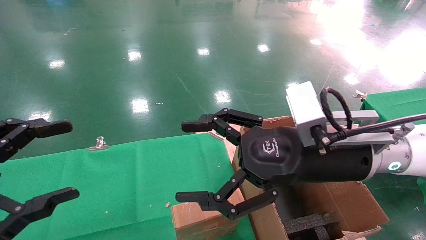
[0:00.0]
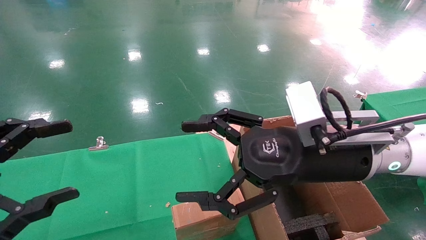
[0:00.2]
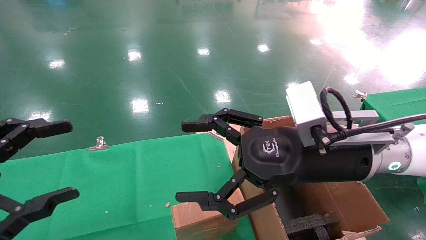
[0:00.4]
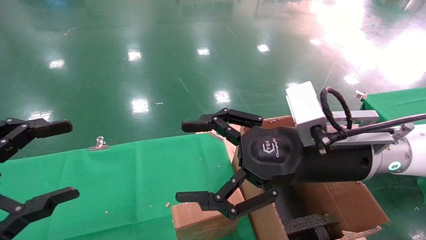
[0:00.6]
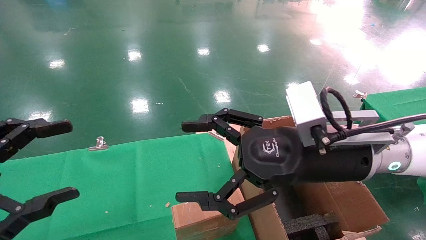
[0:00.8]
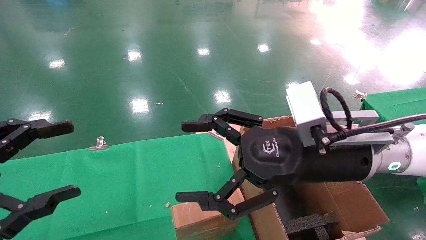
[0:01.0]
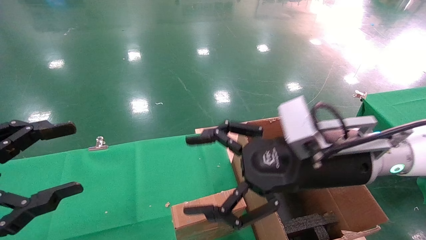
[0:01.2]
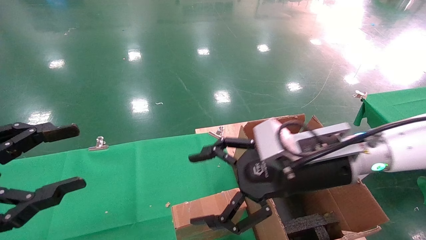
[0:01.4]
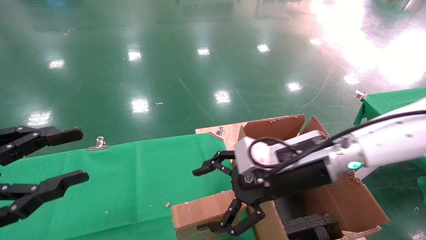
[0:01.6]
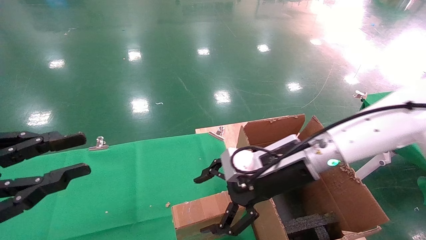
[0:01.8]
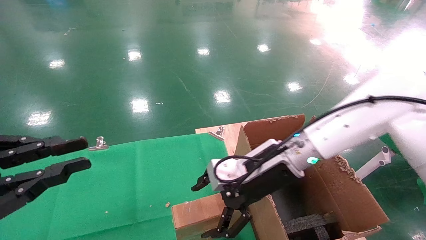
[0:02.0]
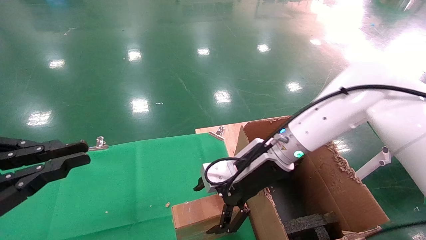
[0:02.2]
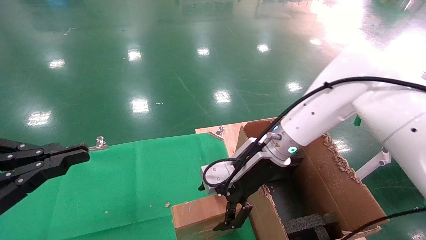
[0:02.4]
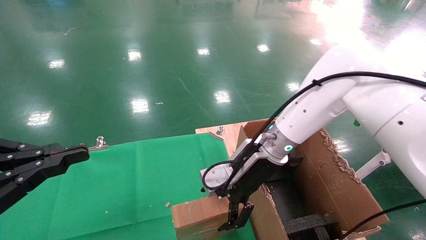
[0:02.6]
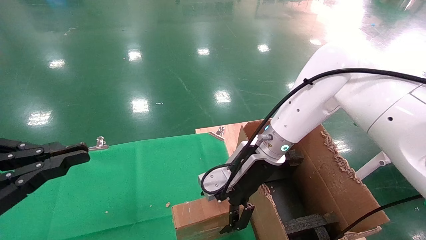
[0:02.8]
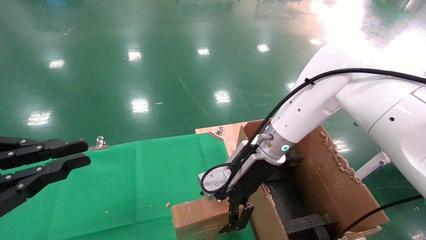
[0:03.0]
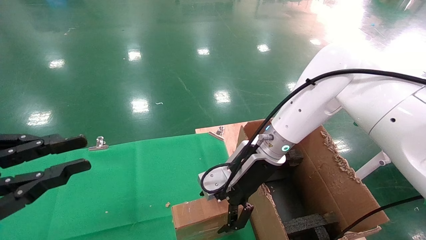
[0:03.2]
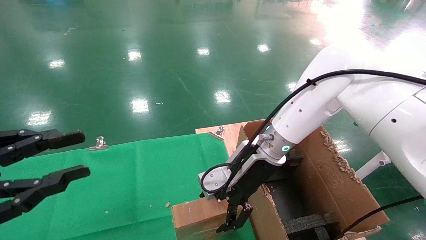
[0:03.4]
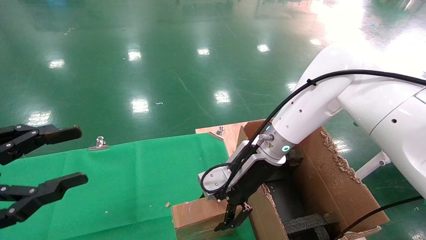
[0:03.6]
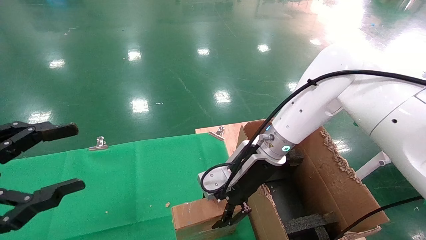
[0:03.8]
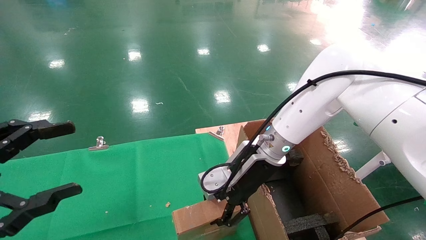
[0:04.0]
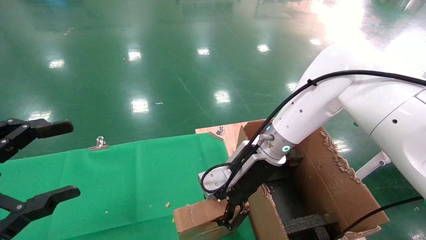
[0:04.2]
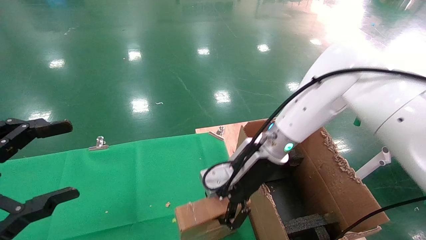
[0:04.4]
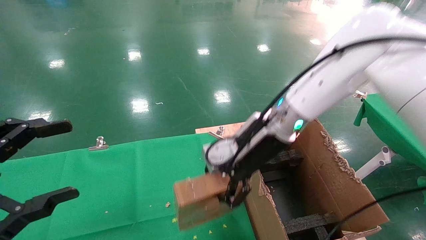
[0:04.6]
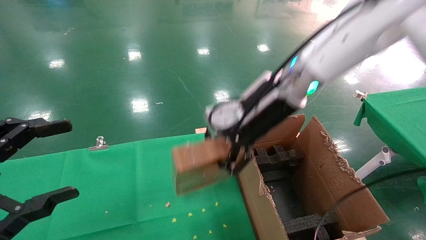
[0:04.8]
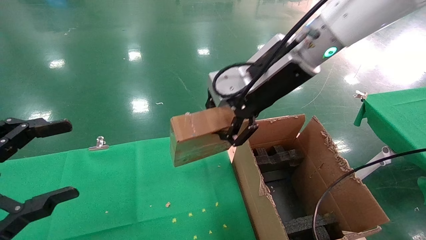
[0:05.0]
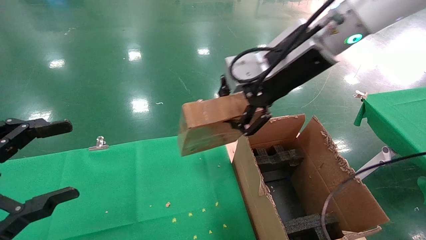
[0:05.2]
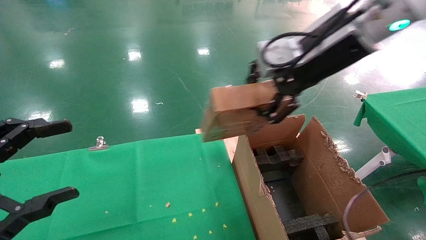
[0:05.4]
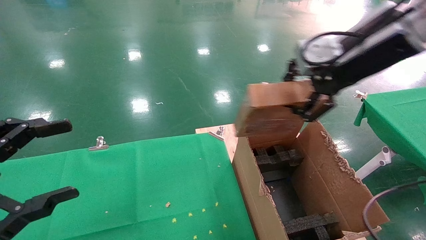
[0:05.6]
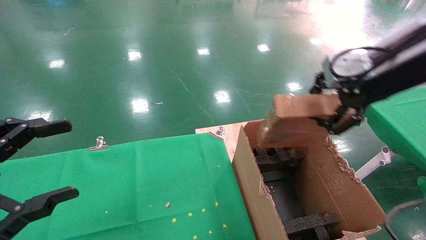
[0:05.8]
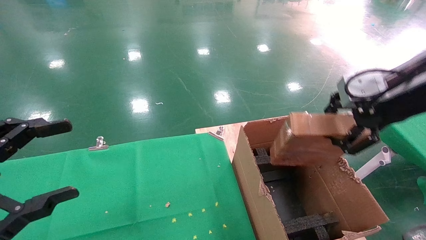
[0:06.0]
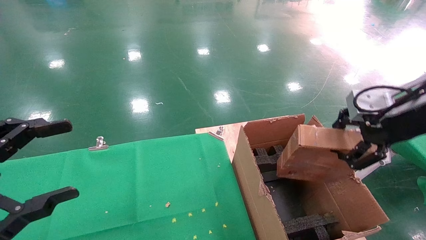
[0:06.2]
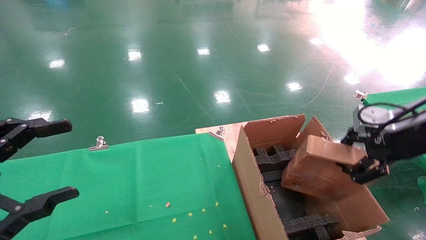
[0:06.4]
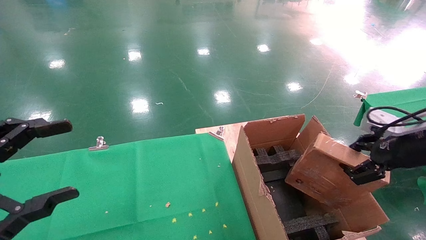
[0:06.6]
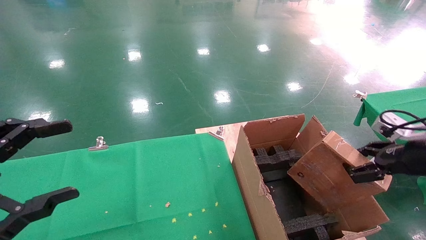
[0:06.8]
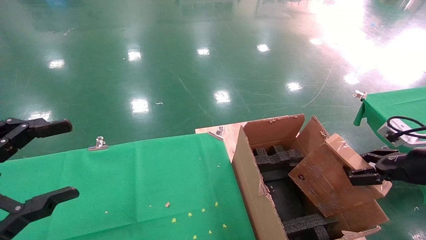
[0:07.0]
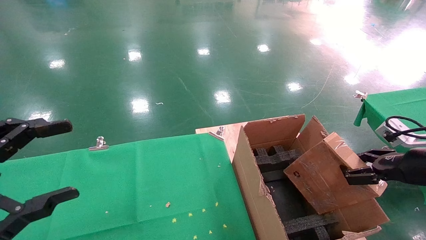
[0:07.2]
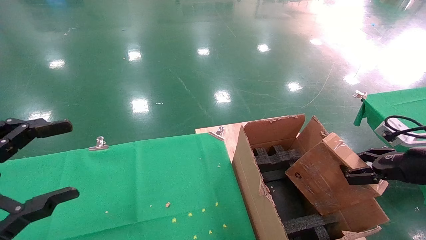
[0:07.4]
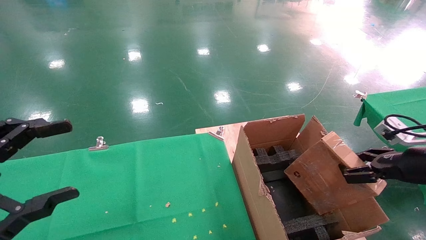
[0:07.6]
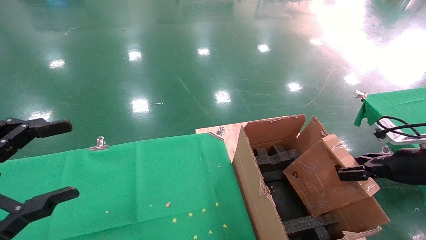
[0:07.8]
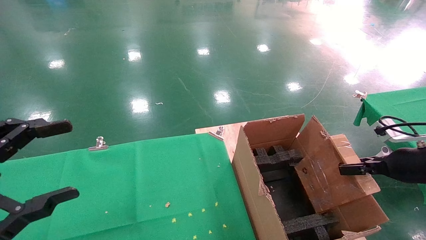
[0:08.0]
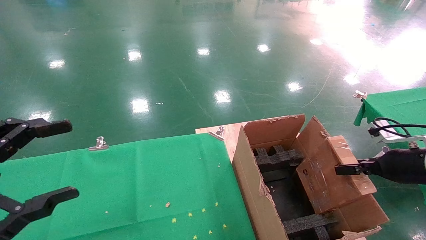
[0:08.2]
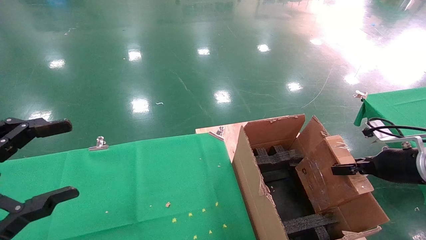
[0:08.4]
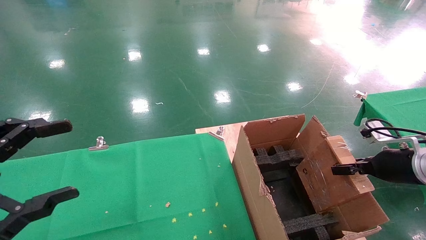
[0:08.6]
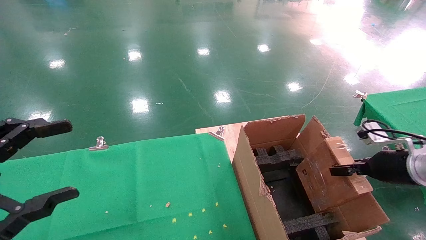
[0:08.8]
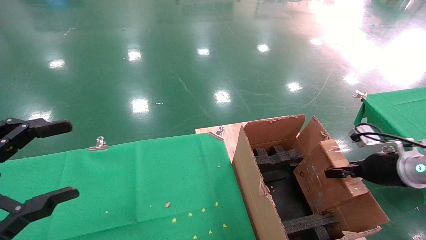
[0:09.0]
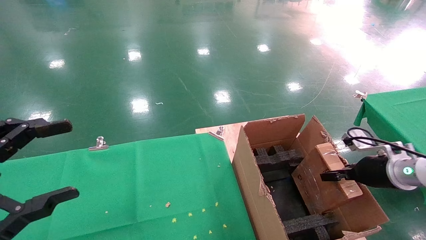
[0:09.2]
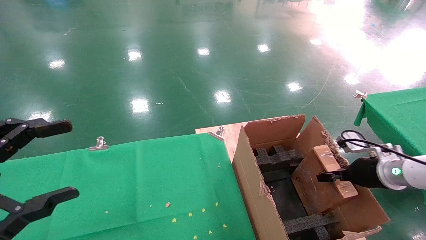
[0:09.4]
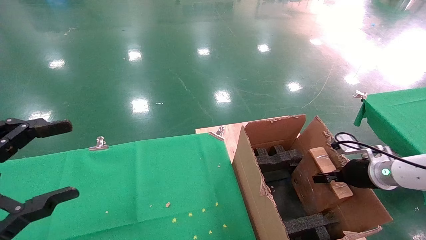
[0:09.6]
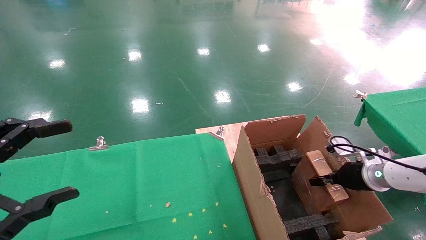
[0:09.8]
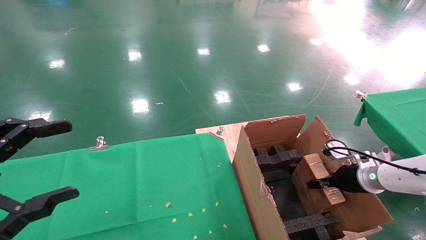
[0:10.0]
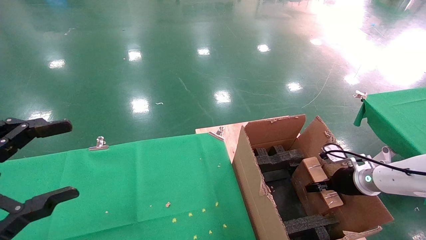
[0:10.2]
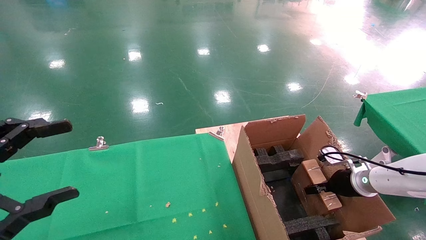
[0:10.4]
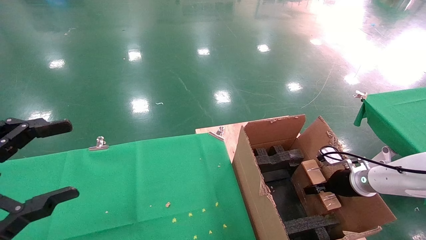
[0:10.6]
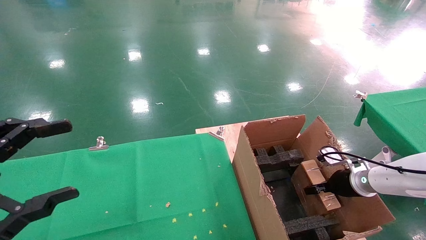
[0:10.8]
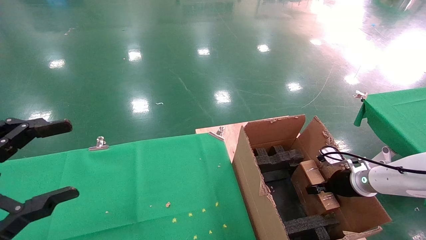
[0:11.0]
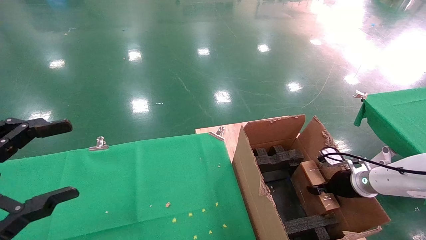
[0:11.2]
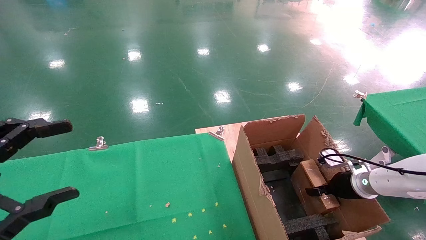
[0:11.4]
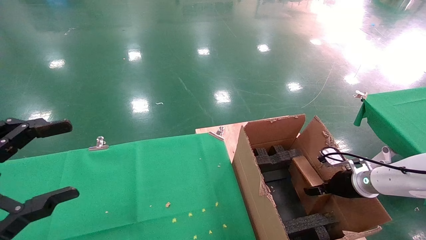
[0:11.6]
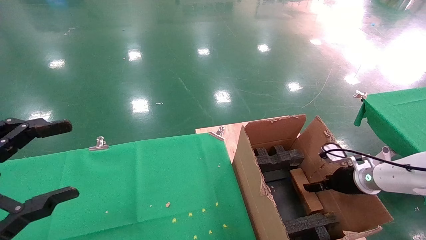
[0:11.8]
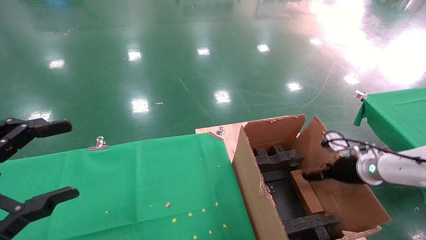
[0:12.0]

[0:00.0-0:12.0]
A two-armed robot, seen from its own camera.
Task of the whole recording: using a robotic arm to pick up a cardboard box and palace it the carton.
Step, 0:01.4 to 0:03.8: Pick up the mouse and the power cord paper box.
0:00.0 to 0:01.6: The right gripper moves forward, about 5 cm.
0:01.6 to 0:03.0: The right gripper is displaced forward by roughly 10 cm, while the left gripper closes its fingers.
0:03.0 to 0:04.4: The right gripper closes its fingers; the left gripper opens its fingers.
0:04.4 to 0:06.0: The right gripper heads to the right, upward and backward, covering approximately 30 cm.
0:06.0 to 0:07.6: The right gripper heads downward and to the right, covering roughly 20 cm.
0:07.6 to 0:09.0: The right gripper goes about 5 cm forward.
0:09.0 to 0:10.4: The right gripper heads downward and forward, covering approximately 10 cm.
0:10.4 to 0:12.0: The right gripper heads upward, covering roughly 5 cm, and opens.

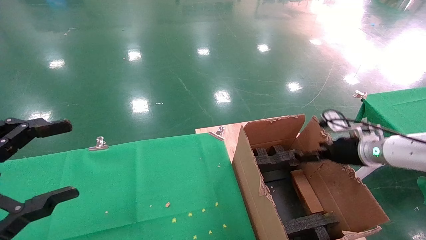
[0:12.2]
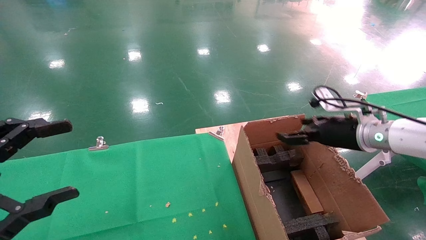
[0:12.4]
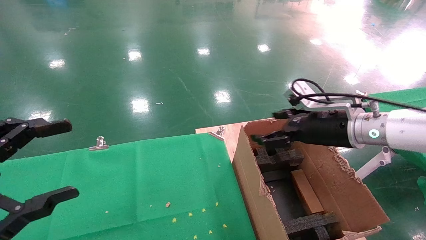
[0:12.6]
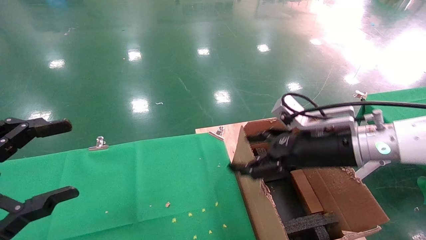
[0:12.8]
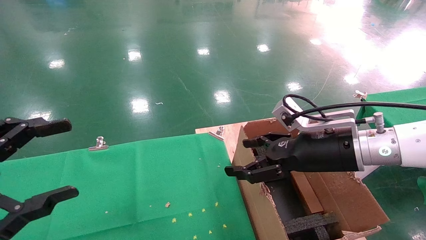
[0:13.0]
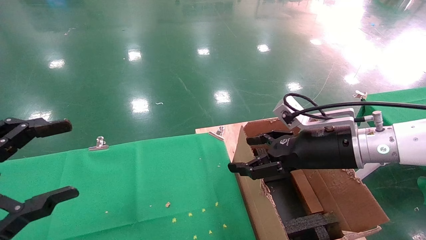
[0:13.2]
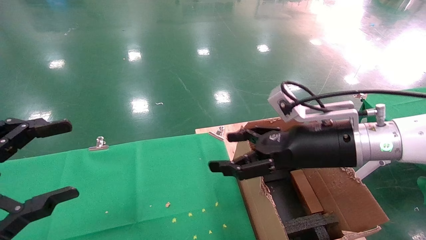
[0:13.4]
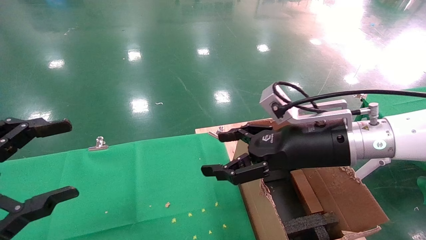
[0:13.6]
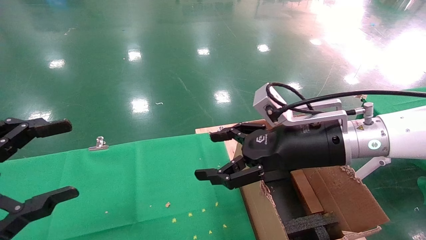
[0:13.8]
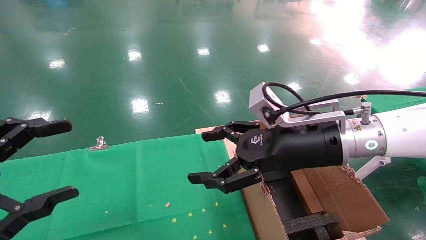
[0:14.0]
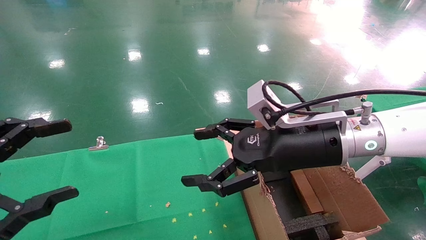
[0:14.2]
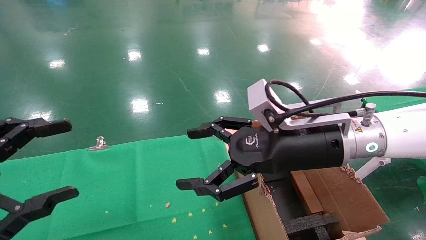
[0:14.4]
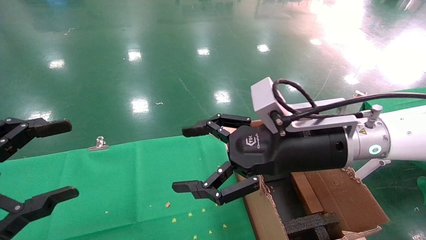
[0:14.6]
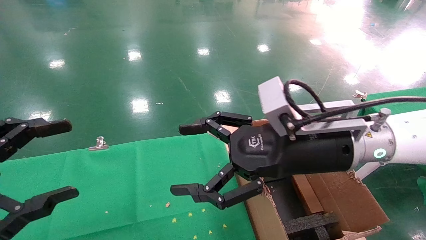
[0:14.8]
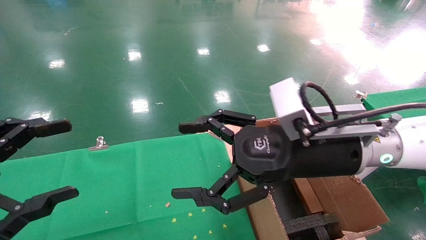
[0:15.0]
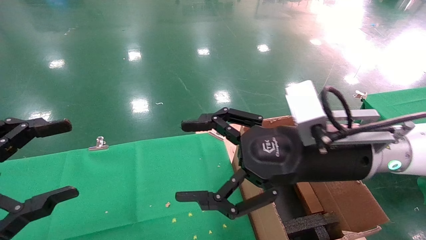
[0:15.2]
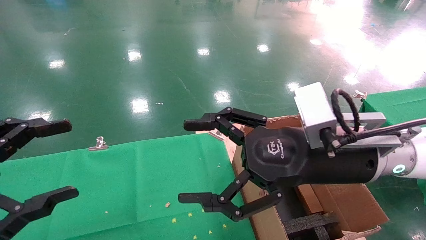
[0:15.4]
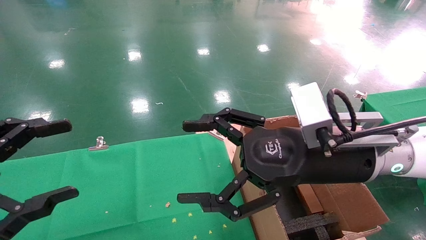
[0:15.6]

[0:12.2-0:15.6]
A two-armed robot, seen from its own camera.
Task of the whole recording: using a robotic arm to pick up a cardboard box and palace it the carton.
0:12.2 to 0:13.8: The right gripper goes about 25 cm to the left, upward and backward.
